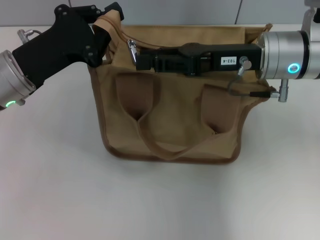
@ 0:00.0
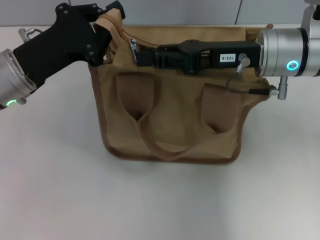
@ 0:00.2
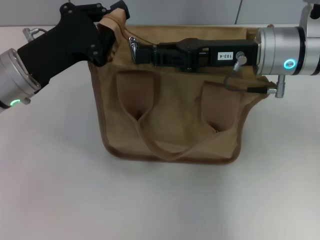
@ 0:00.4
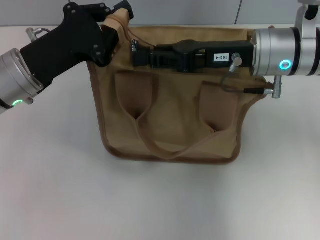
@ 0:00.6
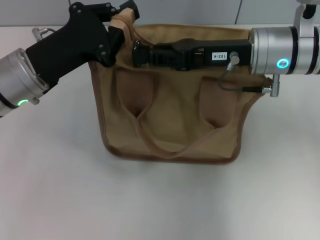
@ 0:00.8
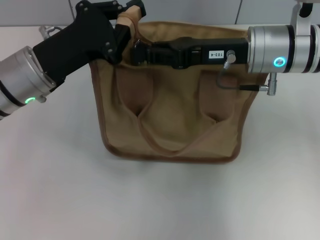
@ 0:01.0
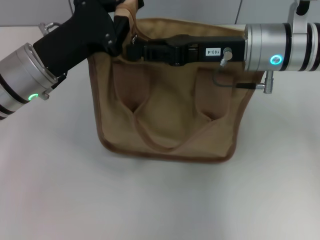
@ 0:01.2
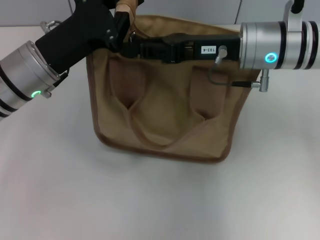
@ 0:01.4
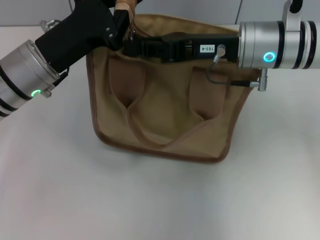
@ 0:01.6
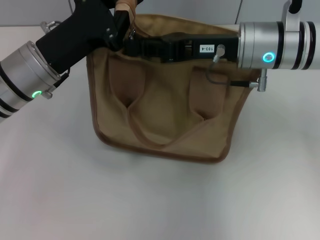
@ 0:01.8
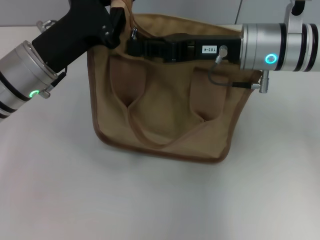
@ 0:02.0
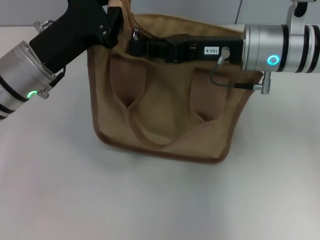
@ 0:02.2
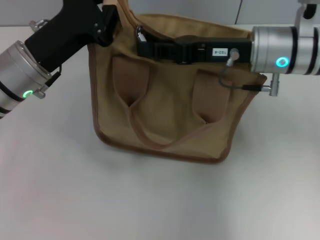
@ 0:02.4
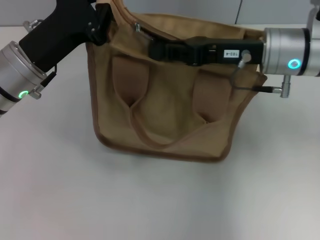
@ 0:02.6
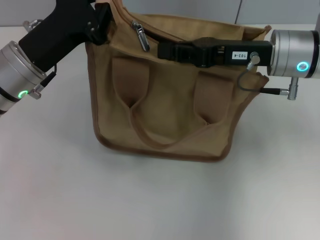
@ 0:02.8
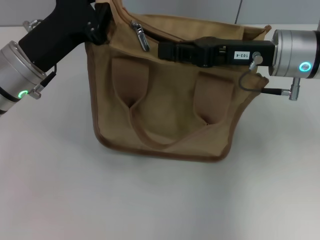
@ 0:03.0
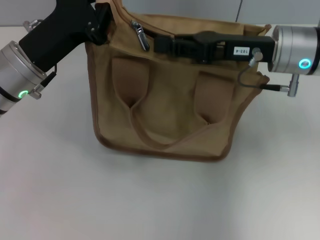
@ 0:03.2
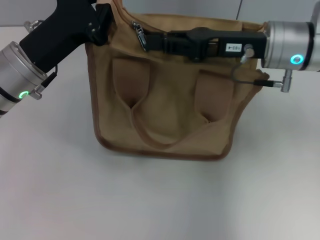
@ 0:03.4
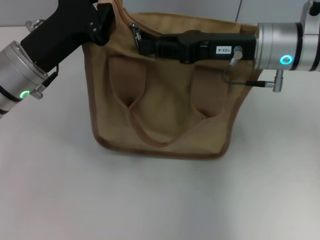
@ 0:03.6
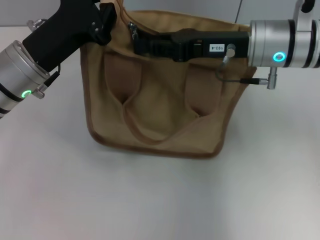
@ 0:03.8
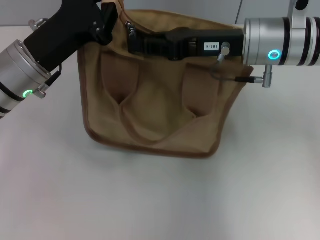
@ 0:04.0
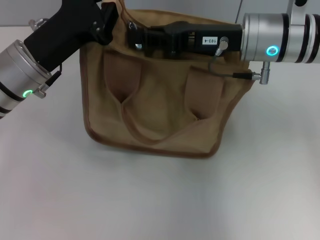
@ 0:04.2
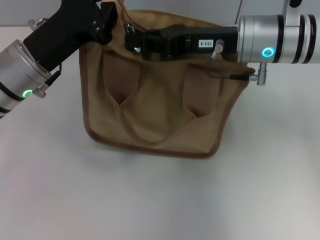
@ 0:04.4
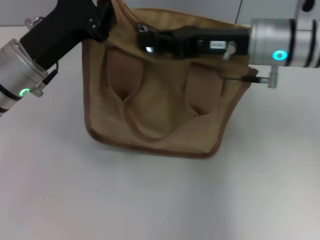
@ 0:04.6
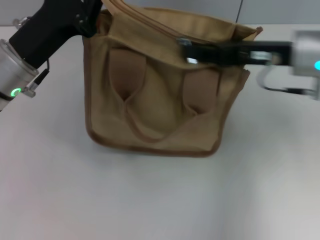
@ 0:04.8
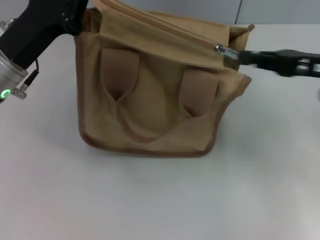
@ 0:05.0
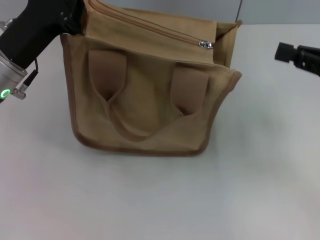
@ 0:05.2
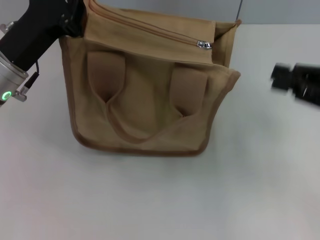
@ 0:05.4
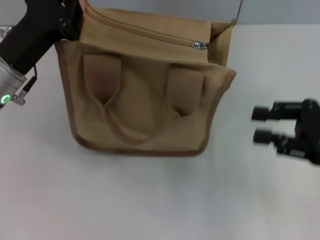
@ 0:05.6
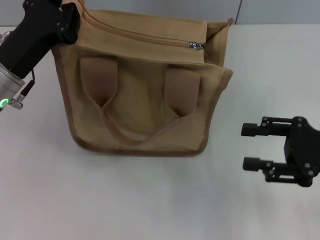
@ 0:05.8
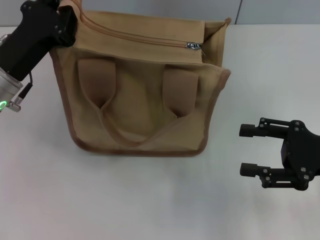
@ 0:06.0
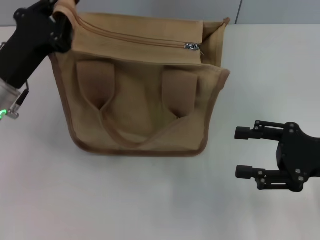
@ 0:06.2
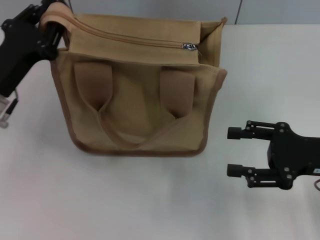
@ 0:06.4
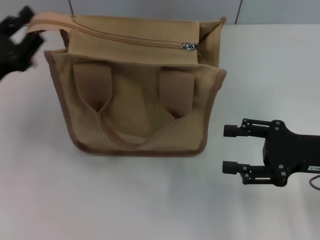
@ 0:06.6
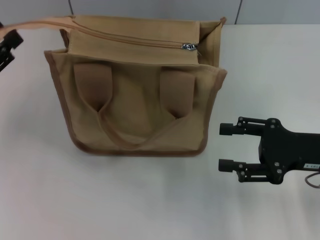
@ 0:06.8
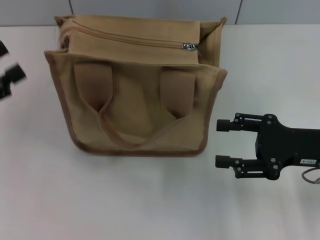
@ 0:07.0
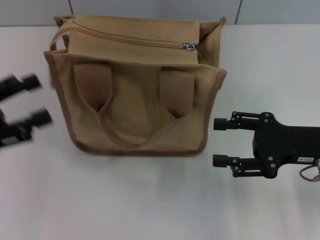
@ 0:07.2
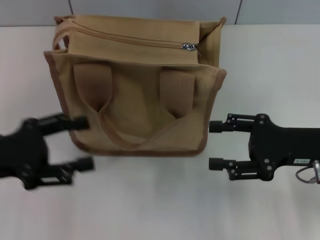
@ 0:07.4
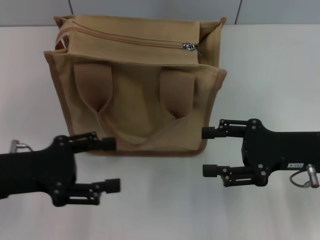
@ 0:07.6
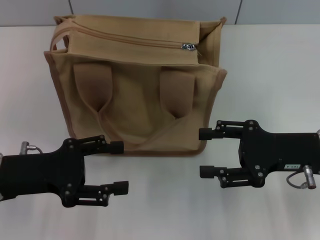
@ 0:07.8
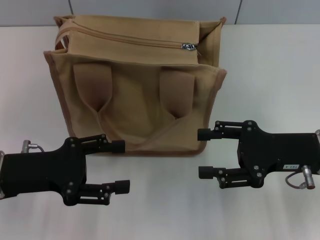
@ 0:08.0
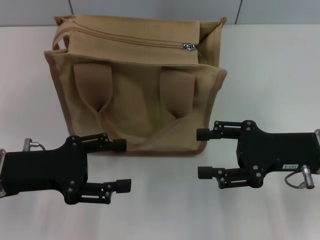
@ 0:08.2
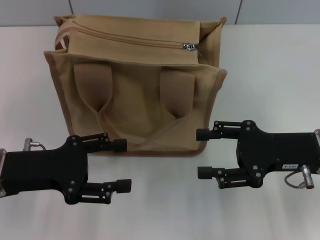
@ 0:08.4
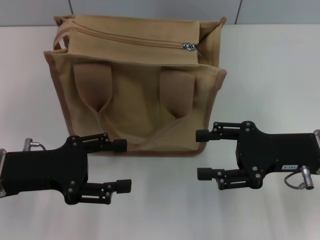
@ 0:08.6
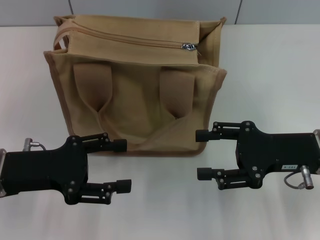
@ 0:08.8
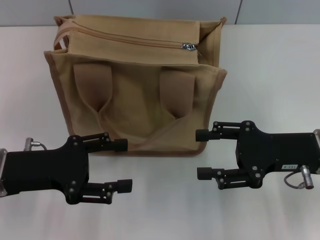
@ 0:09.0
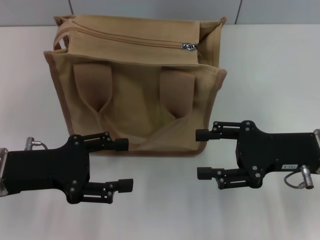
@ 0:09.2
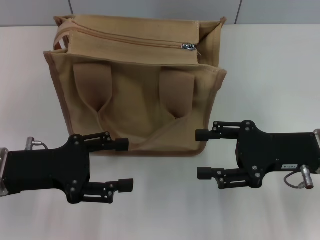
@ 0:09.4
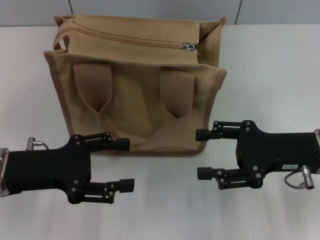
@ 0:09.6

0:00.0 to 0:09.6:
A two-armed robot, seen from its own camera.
Step, 0:00.0 to 0:04.8: Pull up the zipper with your right hand.
Step, 0:05.2 to 0:06.8: Grab the zipper with your left hand.
0:00.0 to 0:01.6: The right gripper closes.
0:01.6 to 0:03.2: The grippers move only a little.
0:03.2 to 0:04.8: The grippers move only a little.
0:04.8 to 0:06.4: The right gripper shifts roughly 15 cm backward, downward and to the right, and opens; the left gripper moves roughly 5 cm.
0:06.4 to 0:08.0: The left gripper moves backward, roughly 5 cm, moves roughly 10 cm to the left and comes back, and opens.
0:08.0 to 0:09.6: Neither gripper changes place.
